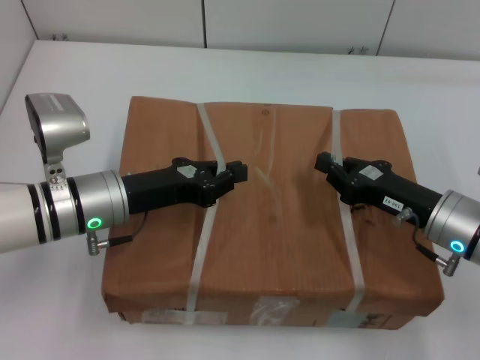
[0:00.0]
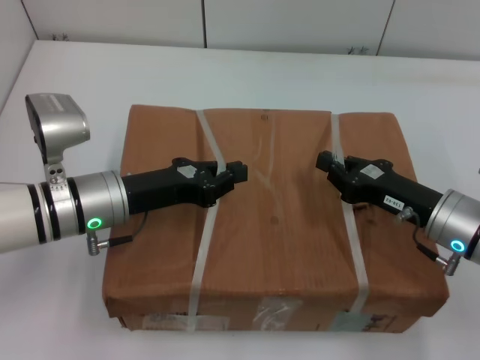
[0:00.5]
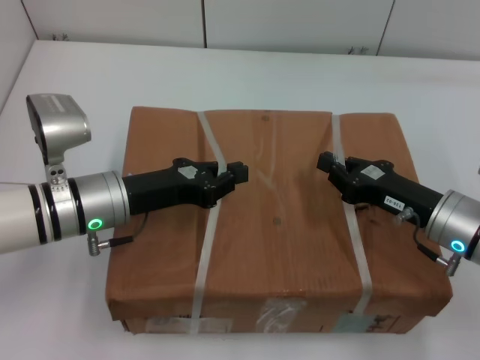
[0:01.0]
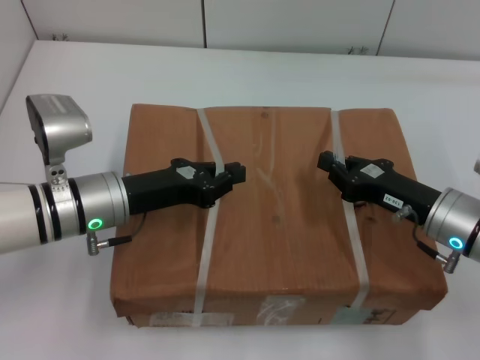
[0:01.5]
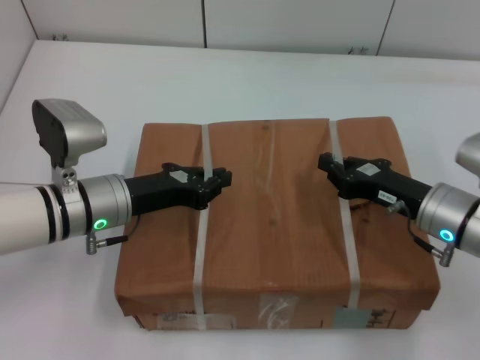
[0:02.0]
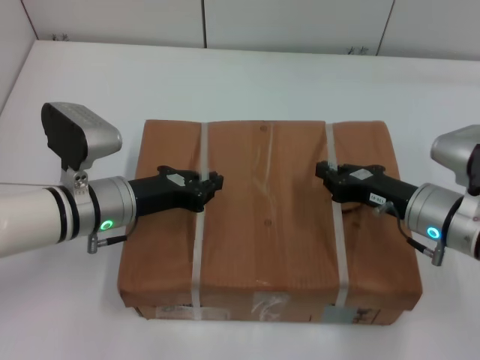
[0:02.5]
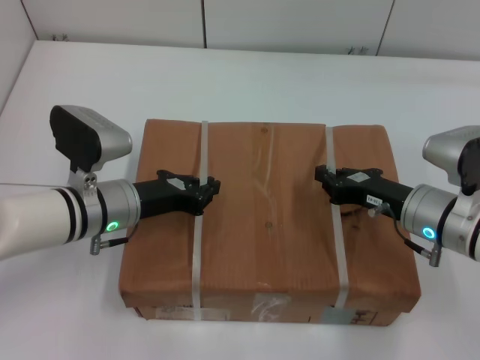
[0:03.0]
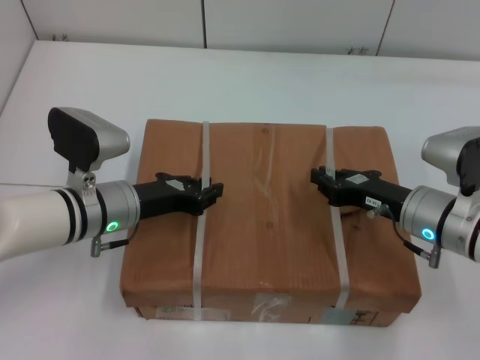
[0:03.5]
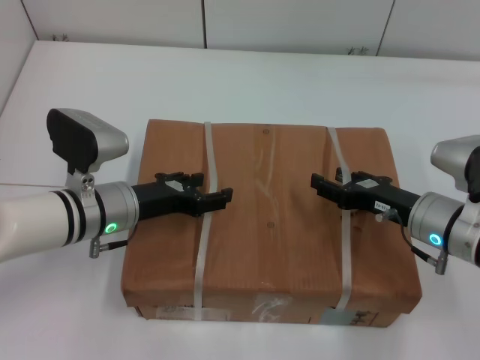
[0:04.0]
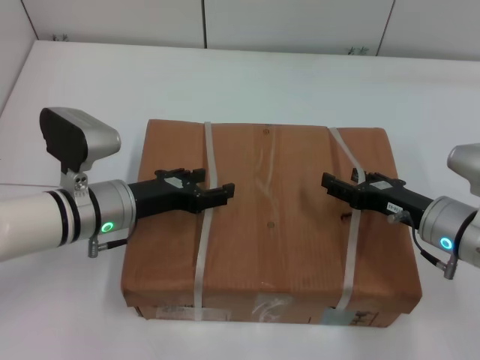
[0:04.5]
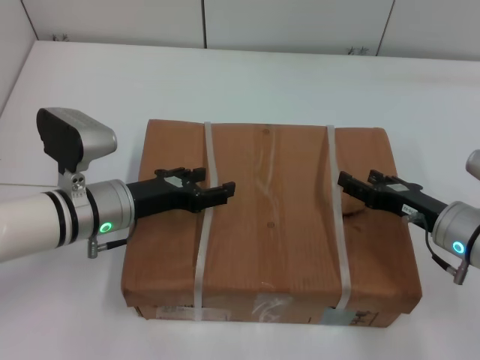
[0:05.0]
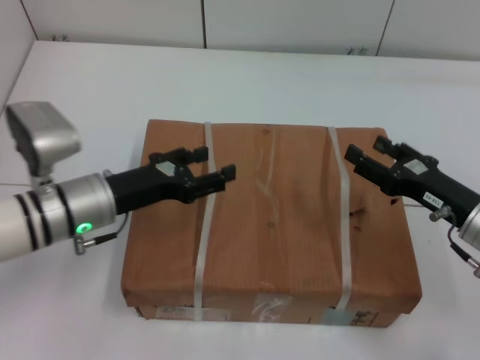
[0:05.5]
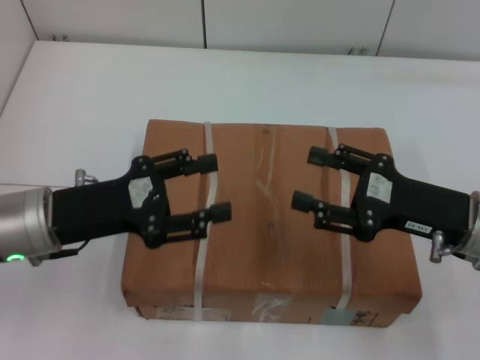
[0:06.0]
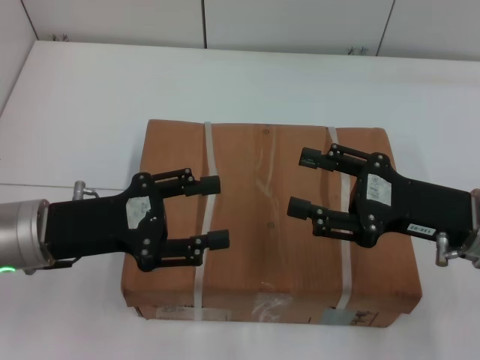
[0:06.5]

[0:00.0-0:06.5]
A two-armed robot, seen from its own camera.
Task of the whole recording: place the box on the table with both arms.
Step, 0:00.0 to 0:02.5: Place the box on the table with left gripper.
Step, 0:00.0 to 0:02.5: Place the box on the table with right gripper.
Step, 0:03.0 to 0:04.5: Loosen the box on the table with left gripper.
Step, 0:03.0 to 0:04.5: Loosen the box on the table with right gripper.
0:00.0 to 0:02.0: The grippers move only a little.
0:02.0 to 0:04.5: The left gripper opens. Meanwhile the right gripper opens.
0:04.5 to 0:06.5: The left gripper travels backward and upward by roughly 10 cm. The right gripper heads upward, covering about 10 cm.
